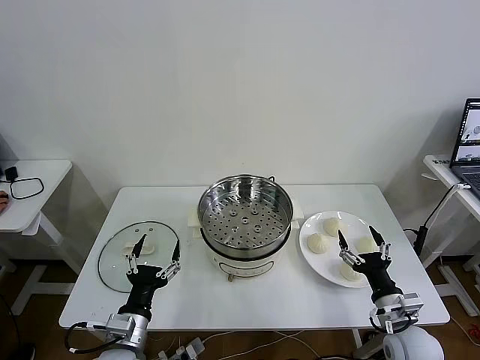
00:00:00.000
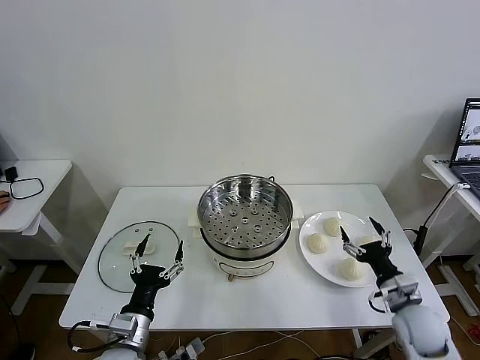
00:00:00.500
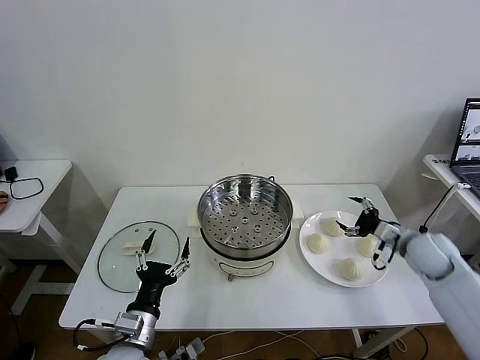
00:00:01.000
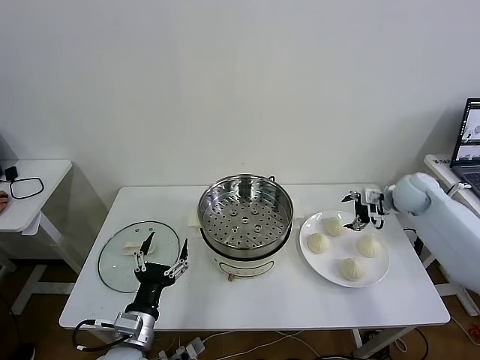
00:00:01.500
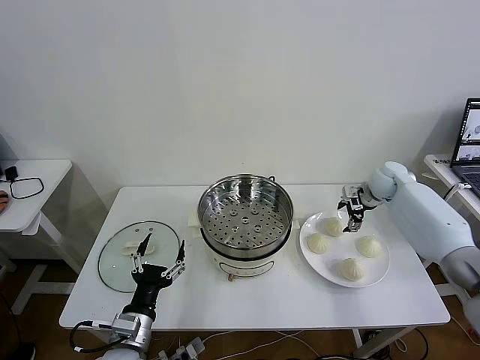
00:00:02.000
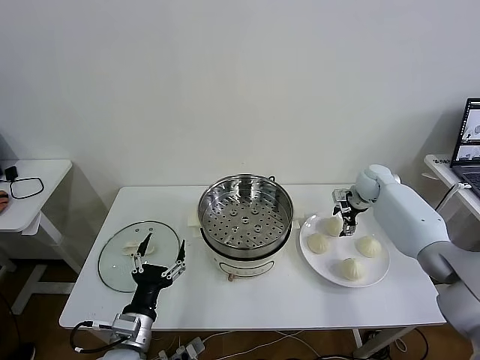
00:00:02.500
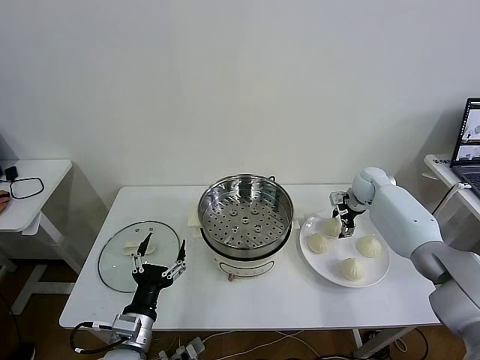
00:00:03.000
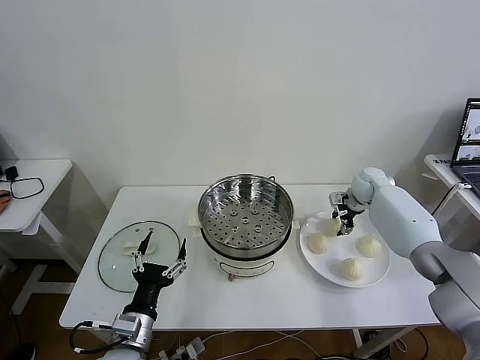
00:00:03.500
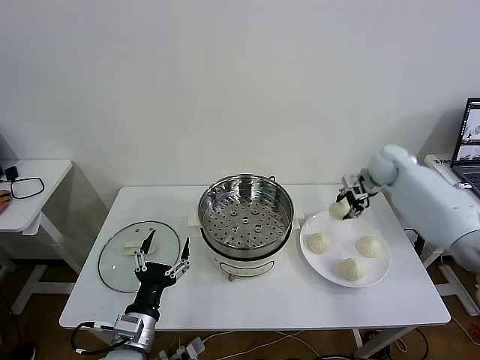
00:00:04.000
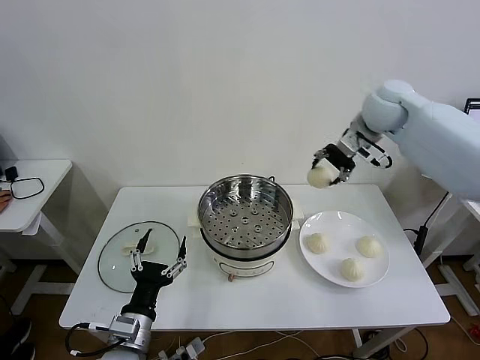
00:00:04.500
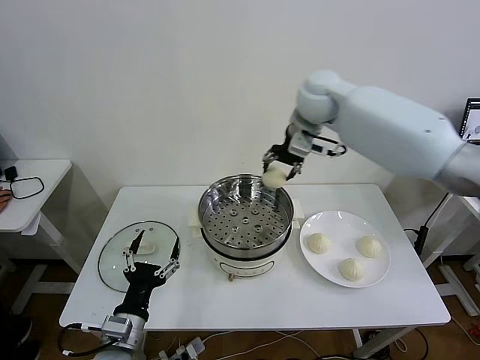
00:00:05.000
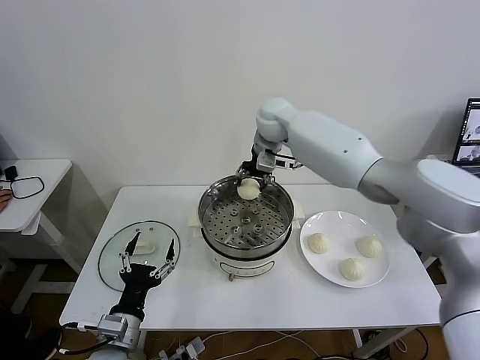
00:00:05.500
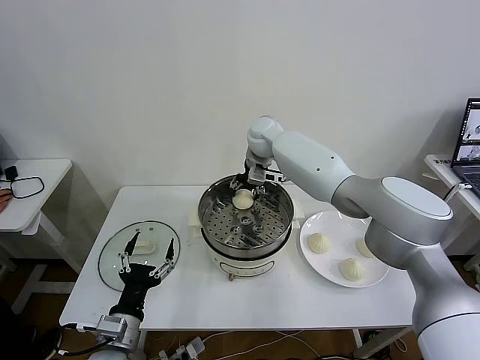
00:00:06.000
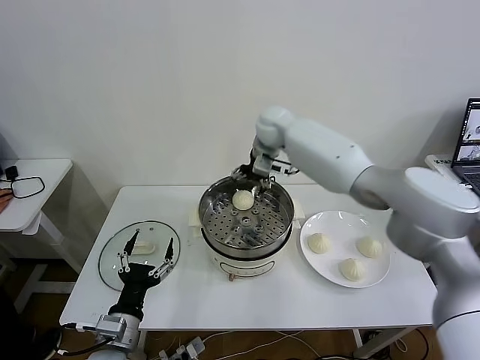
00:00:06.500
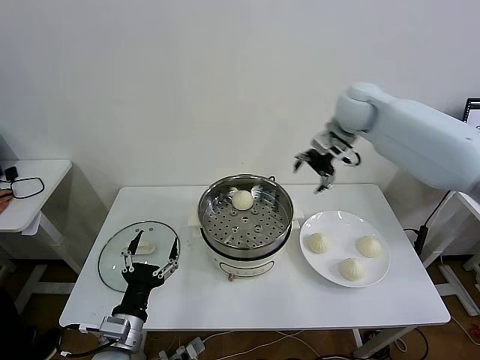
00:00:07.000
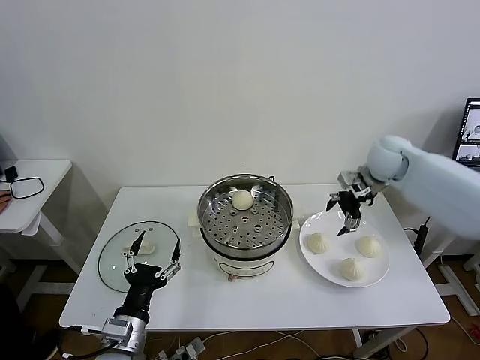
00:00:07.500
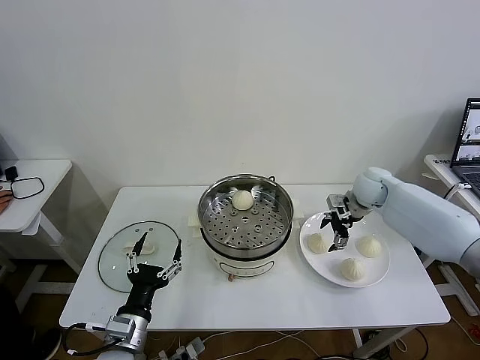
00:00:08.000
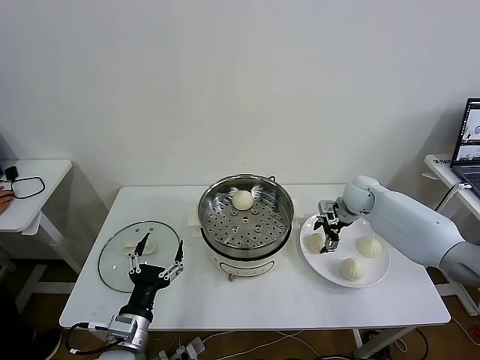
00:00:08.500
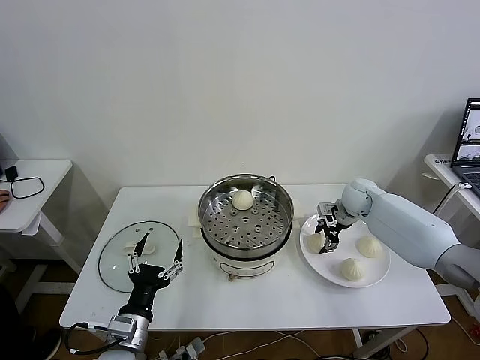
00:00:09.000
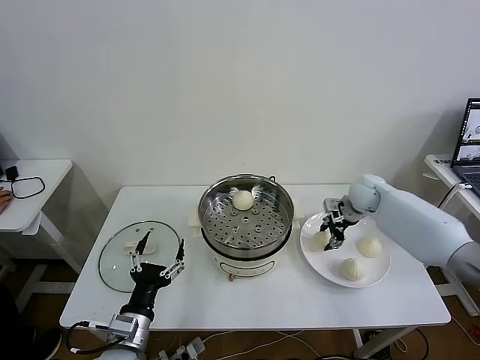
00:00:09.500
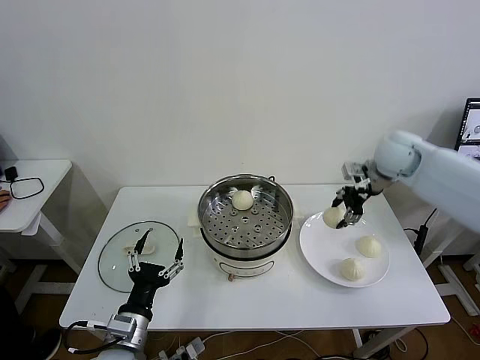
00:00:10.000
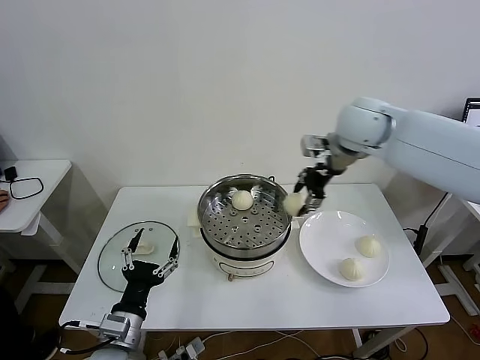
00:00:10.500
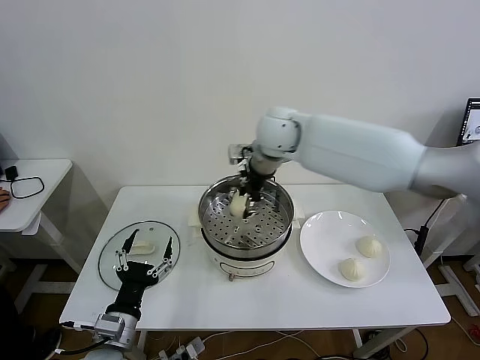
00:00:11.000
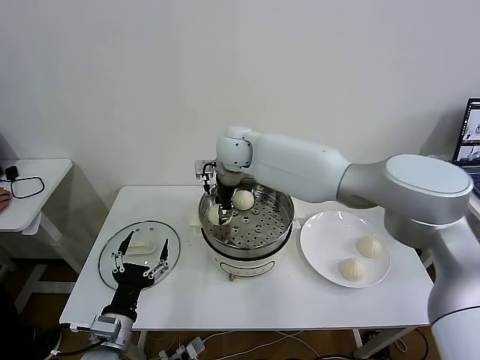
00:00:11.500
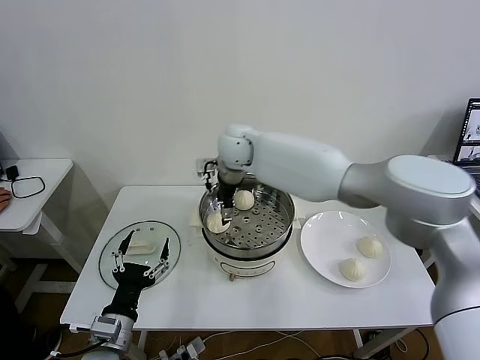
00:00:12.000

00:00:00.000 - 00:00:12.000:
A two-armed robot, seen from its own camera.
Task of the whole recording: take steamed baozi put them in steamer then cover it.
Step, 00:00:00.000 - 00:00:03.000: Grasp the baozi in the plate with right gripper.
Step, 00:00:03.500 - 00:00:06.000: Place the baozi on the steamer with right gripper.
Step, 00:00:06.500 - 00:00:09.000: Grasp the baozi in the plate with right gripper.
Step, 00:00:09.500 - 00:00:11.500: Place the baozi on the steamer with right gripper.
00:00:02.000 - 00:00:04.000: The right gripper shifts about 5 cm upward, and closes its fingers.
00:00:04.000 - 00:00:06.000: The right gripper moves to the left, roughly 30 cm, and opens its fingers.
00:00:06.000 - 00:00:08.000: The right gripper moves to the right, approximately 25 cm, and opens its fingers.
00:00:08.000 - 00:00:10.000: The right gripper is displaced upward by some 10 cm, and closes up.
00:00:10.000 - 00:00:12.000: The right gripper moves to the left, some 35 cm, and opens its fingers.

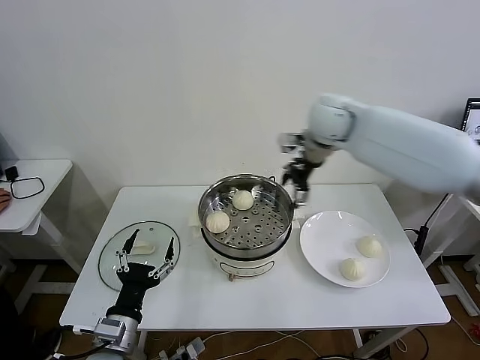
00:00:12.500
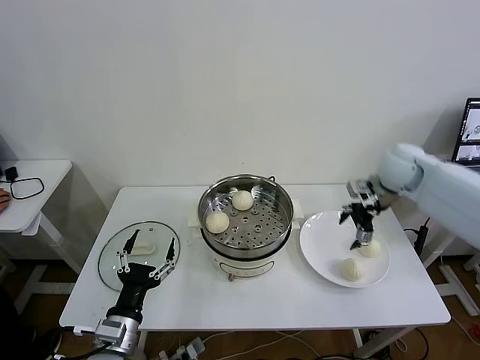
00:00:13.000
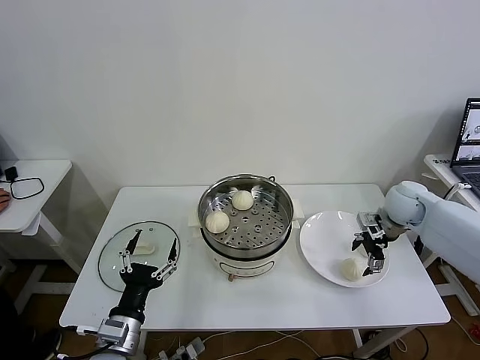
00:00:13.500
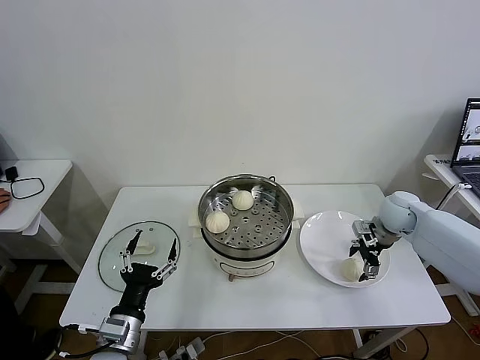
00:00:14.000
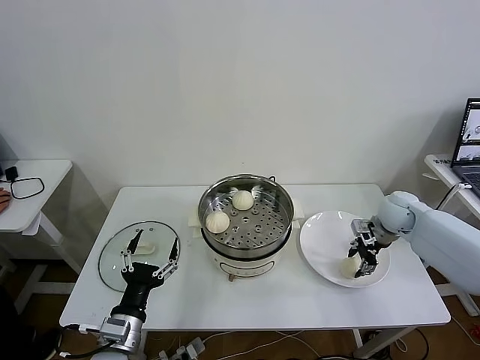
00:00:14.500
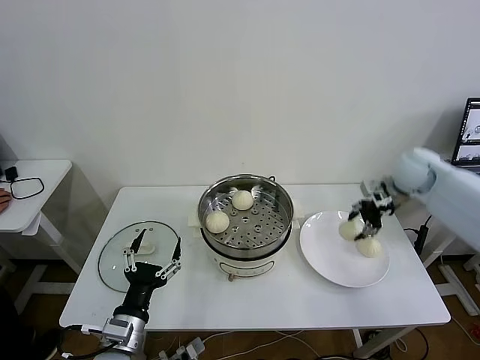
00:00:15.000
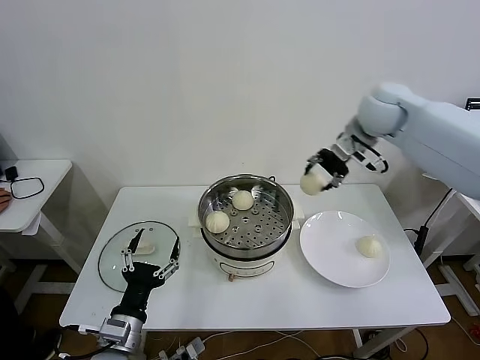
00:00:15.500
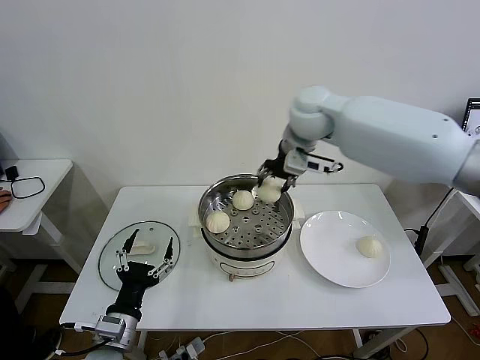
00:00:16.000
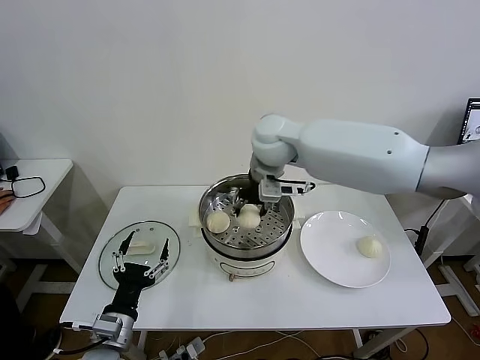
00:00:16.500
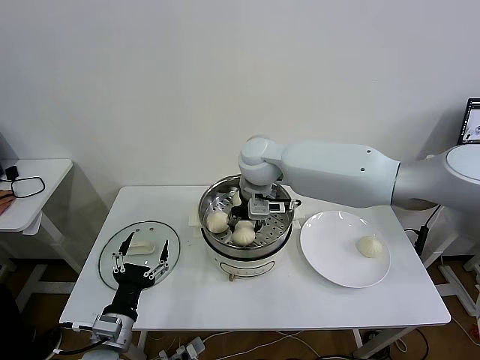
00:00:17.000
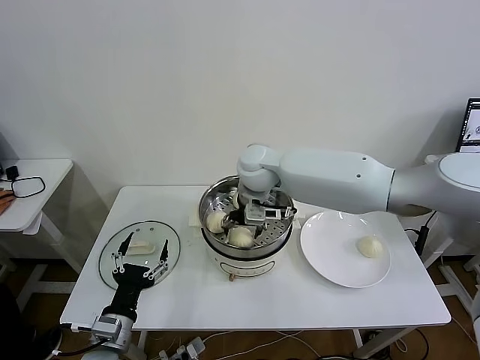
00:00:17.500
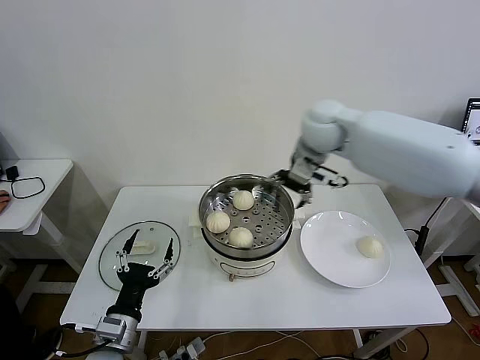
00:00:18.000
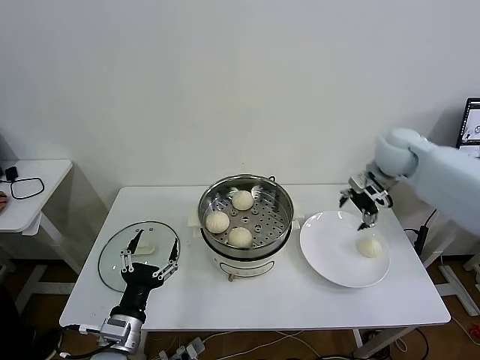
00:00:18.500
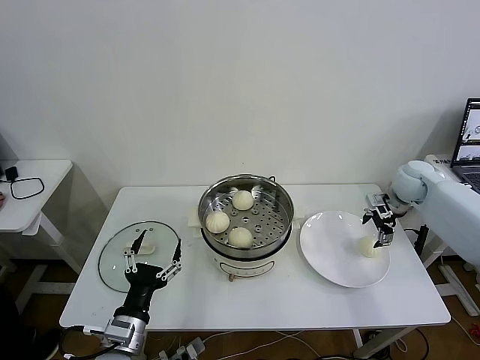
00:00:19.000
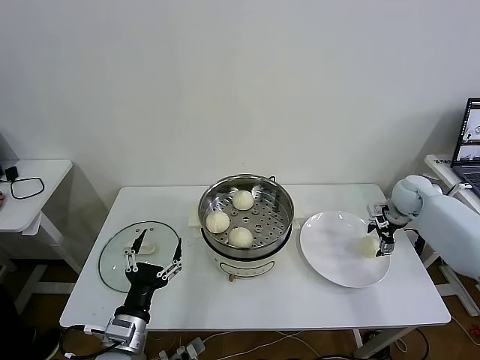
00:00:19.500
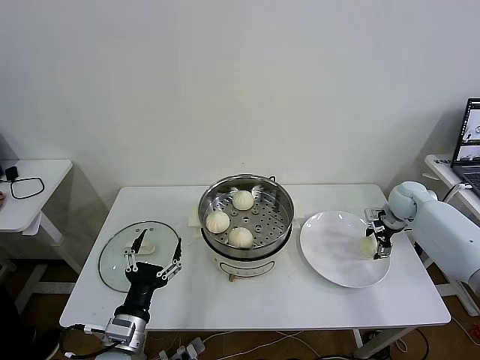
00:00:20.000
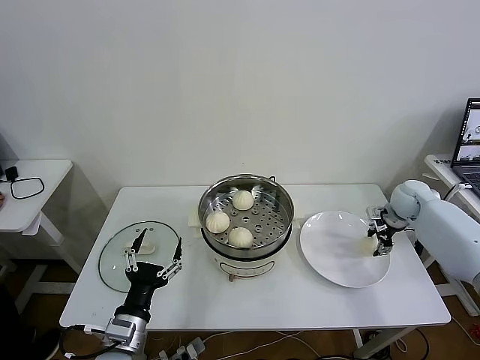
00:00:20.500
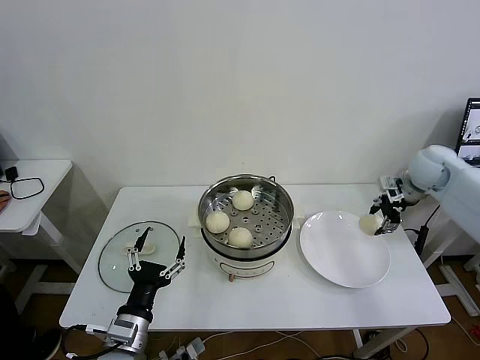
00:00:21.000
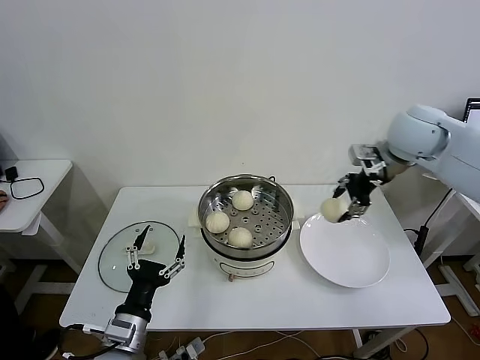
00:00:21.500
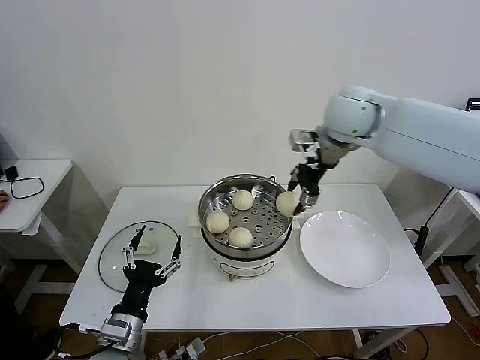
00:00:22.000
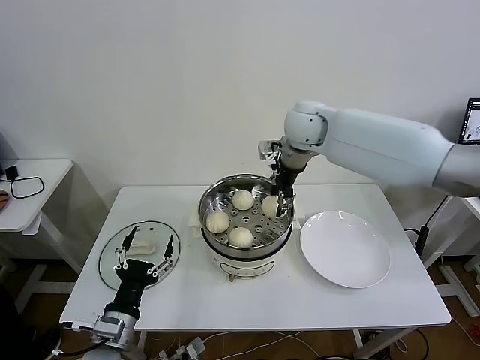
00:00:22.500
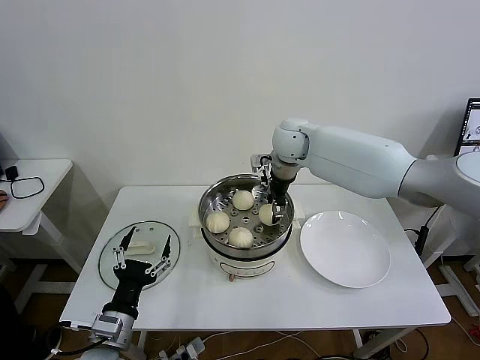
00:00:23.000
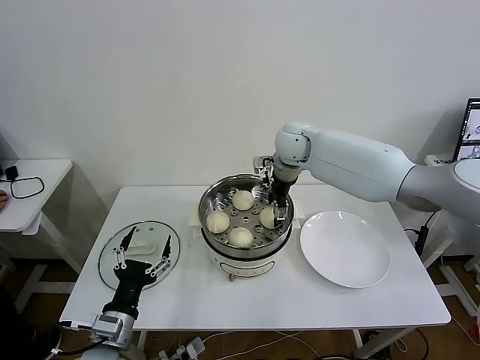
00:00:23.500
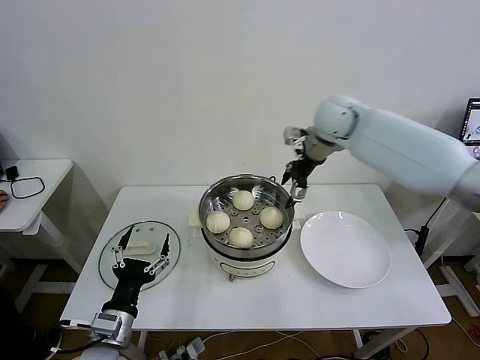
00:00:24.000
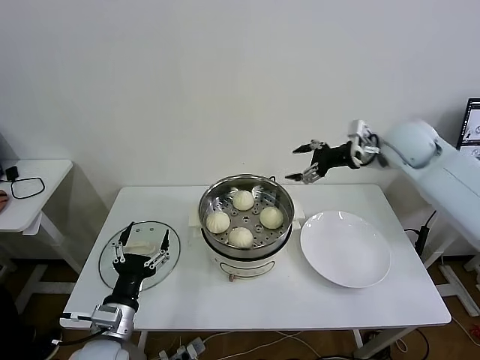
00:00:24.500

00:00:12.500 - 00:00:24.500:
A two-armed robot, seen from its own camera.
Task of the whole recording: take steamed baozi put them in steamer then cover it.
Step, 00:00:12.500 - 00:00:14.000: Grasp the baozi in the plate with right gripper.
Step, 00:00:14.500 - 00:00:17.000: Place the baozi on the steamer with right gripper.
Step, 00:00:17.500 - 00:00:20.000: Grasp the baozi in the plate with right gripper.
Step, 00:00:20.500 - 00:00:23.500: Place the baozi on the steamer with right gripper.
00:00:12.500 - 00:00:14.500: The right gripper goes some 30 cm downward and to the right, and closes.
00:00:14.500 - 00:00:16.500: The right gripper shifts approximately 40 cm to the left and upward.
00:00:16.500 - 00:00:18.500: The right gripper moves to the right, some 30 cm, and opens up.
00:00:18.500 - 00:00:20.500: The right gripper shifts roughly 20 cm downward and to the right, and closes.
00:00:20.500 - 00:00:22.500: The right gripper moves to the left and upward, approximately 40 cm.
00:00:22.500 - 00:00:24.500: The right gripper shifts about 20 cm to the right, and opens up.

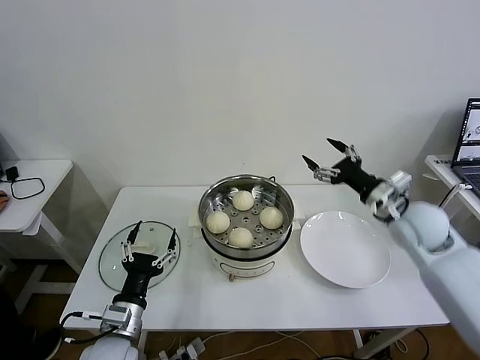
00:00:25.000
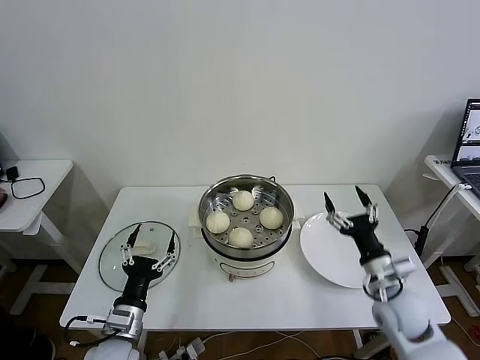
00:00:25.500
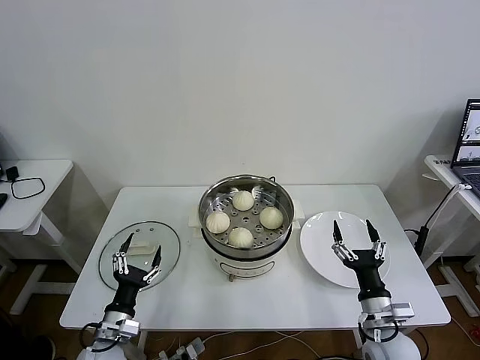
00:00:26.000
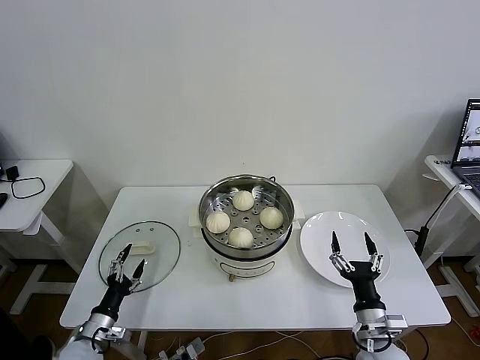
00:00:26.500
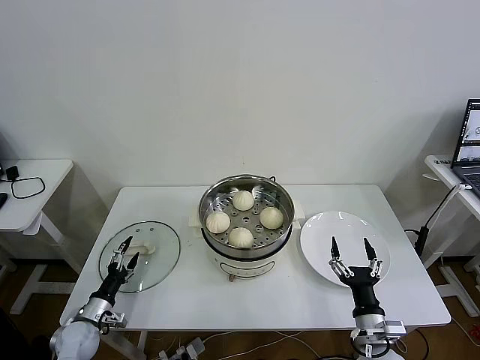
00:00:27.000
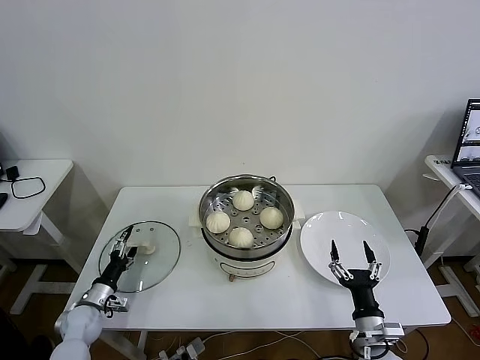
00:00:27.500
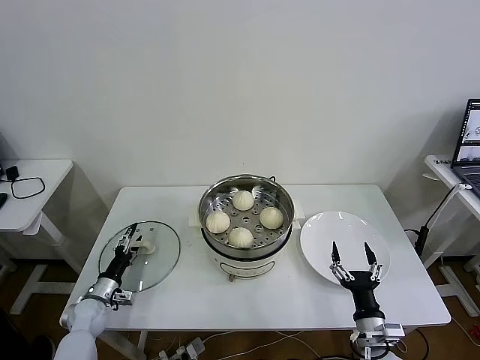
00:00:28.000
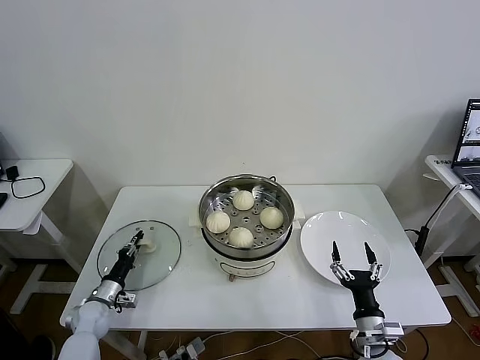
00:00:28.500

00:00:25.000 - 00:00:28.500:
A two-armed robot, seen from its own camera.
Task of the whole recording: take steamed baozi put them in steamer then cover it.
00:00:25.000 - 00:00:27.000: The left gripper is displaced to the left, downward and forward by some 25 cm. Meanwhile the right gripper goes roughly 30 cm downward and backward.
00:00:27.000 - 00:00:28.500: The left gripper goes roughly 5 cm forward, and closes up.
